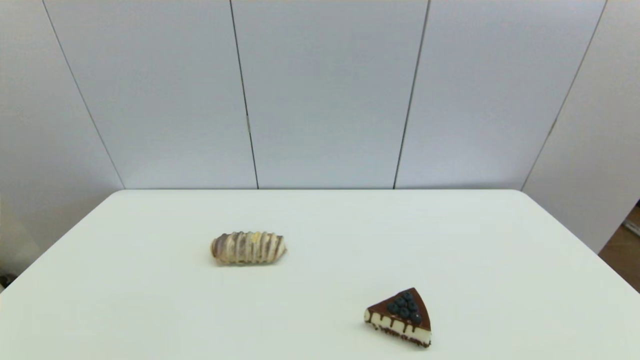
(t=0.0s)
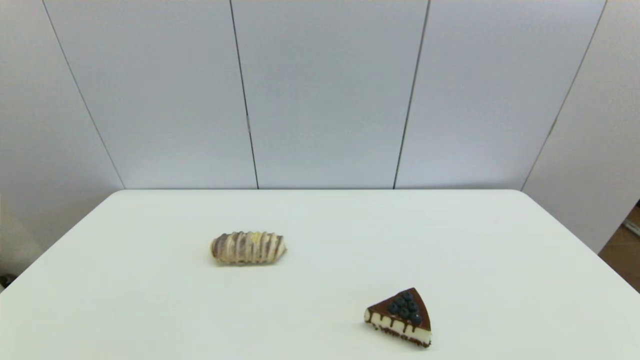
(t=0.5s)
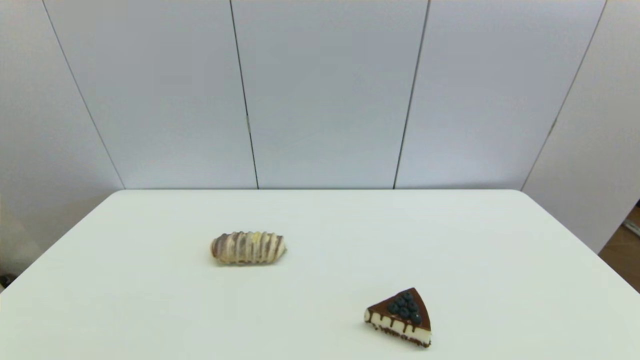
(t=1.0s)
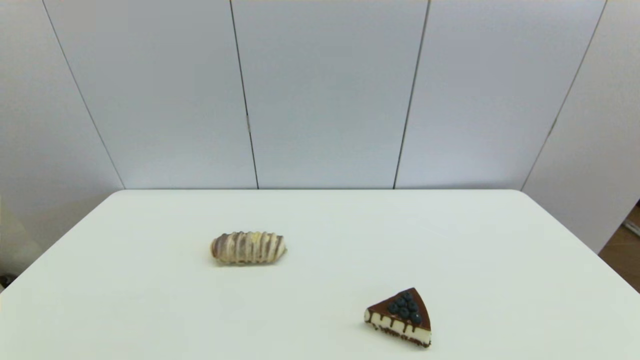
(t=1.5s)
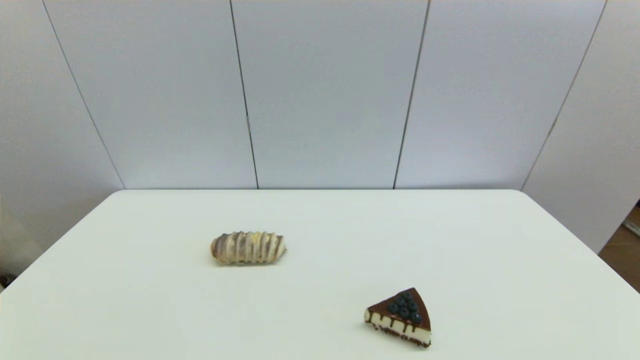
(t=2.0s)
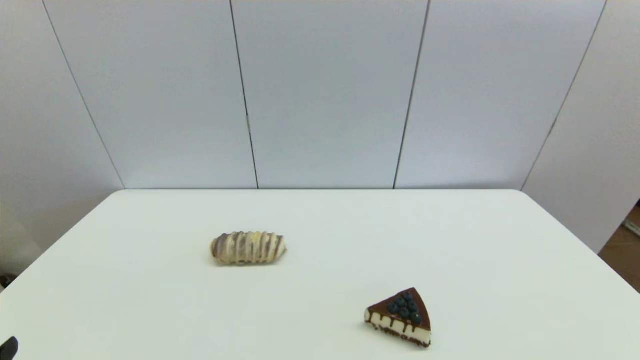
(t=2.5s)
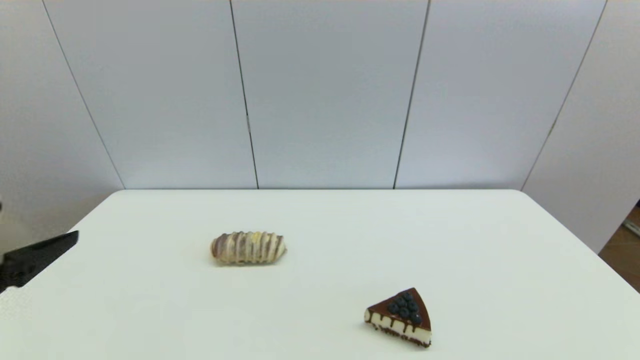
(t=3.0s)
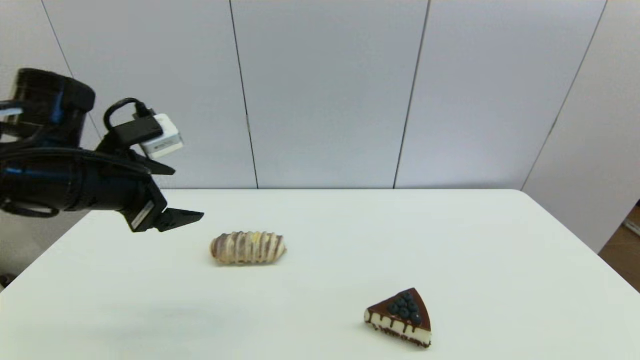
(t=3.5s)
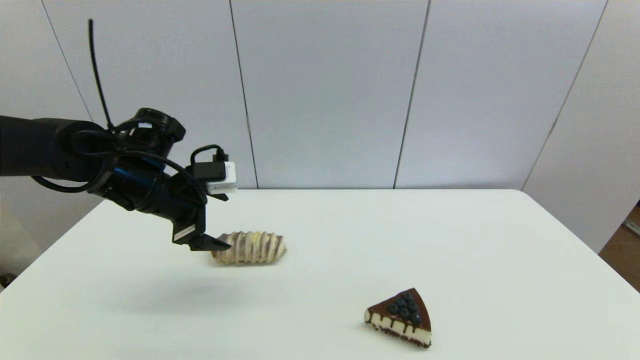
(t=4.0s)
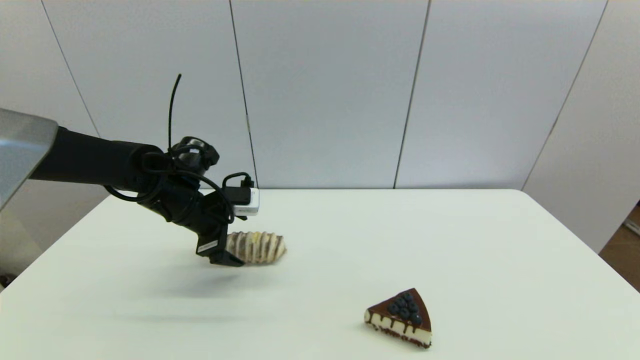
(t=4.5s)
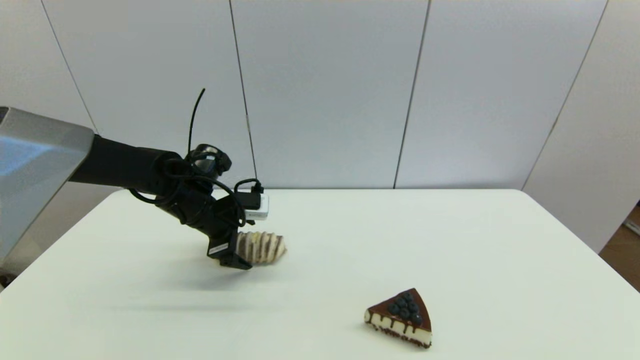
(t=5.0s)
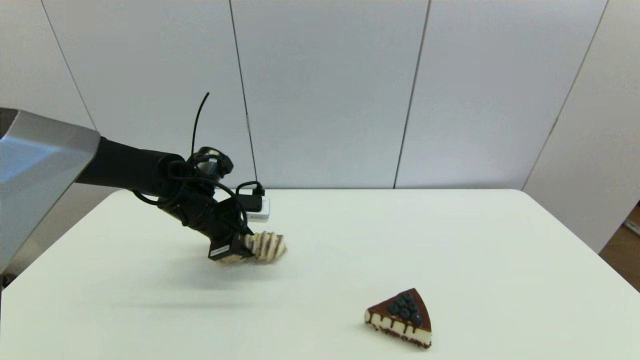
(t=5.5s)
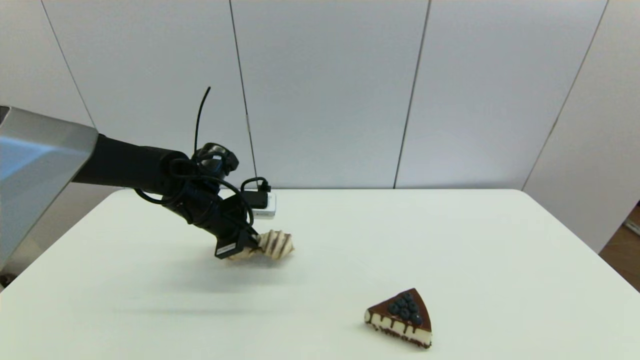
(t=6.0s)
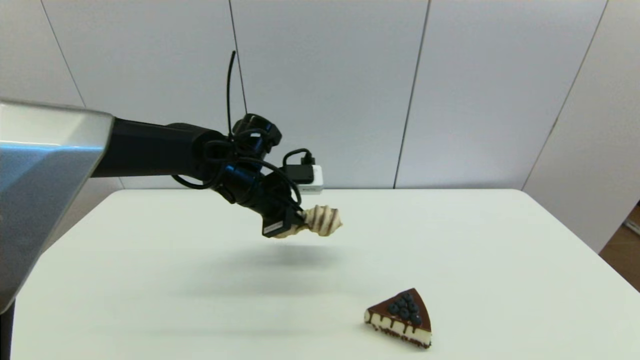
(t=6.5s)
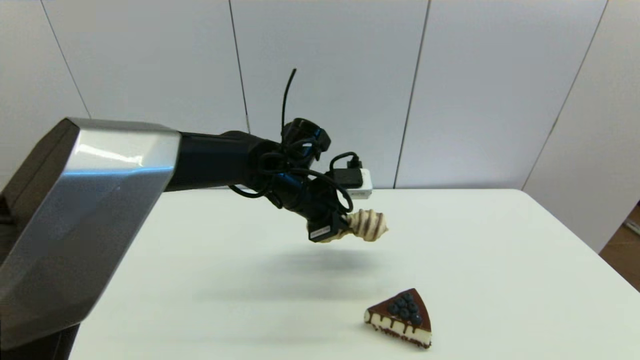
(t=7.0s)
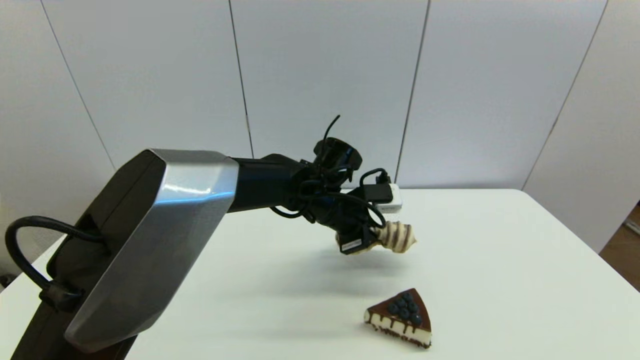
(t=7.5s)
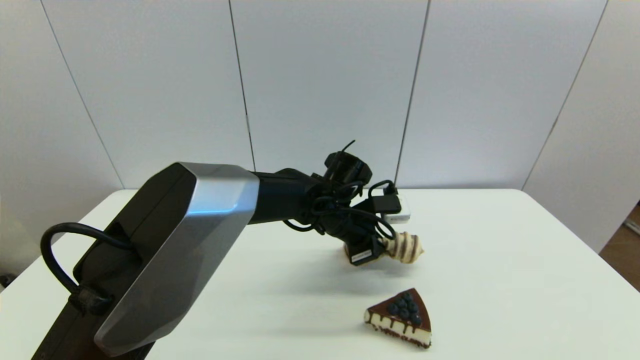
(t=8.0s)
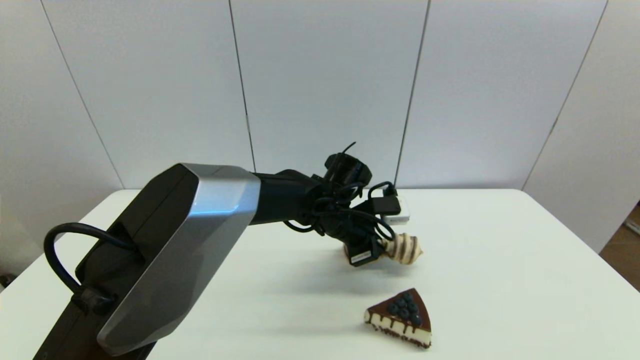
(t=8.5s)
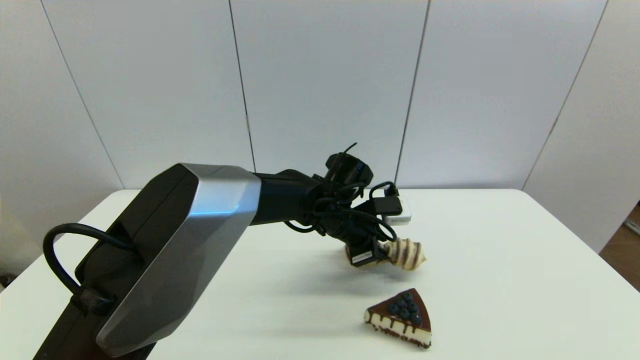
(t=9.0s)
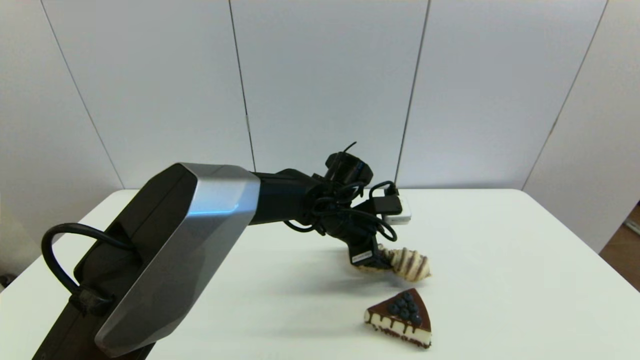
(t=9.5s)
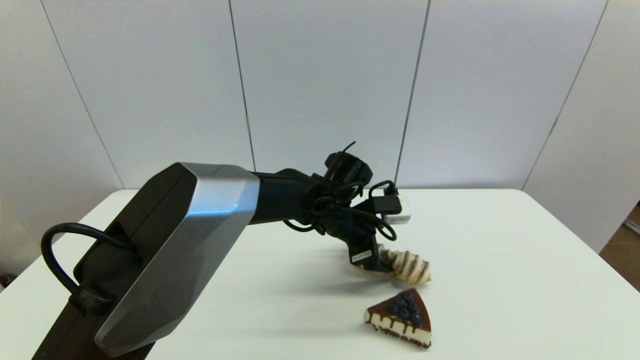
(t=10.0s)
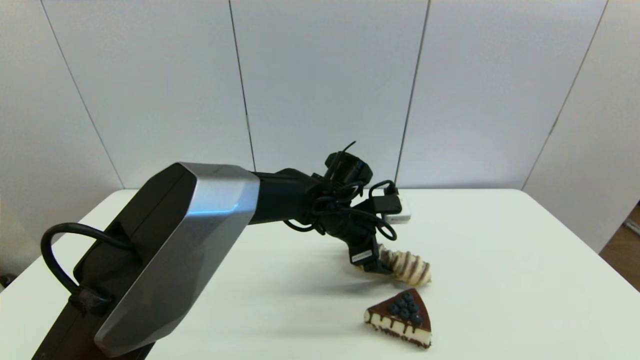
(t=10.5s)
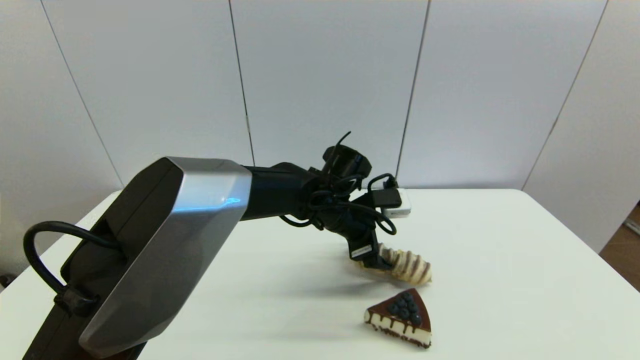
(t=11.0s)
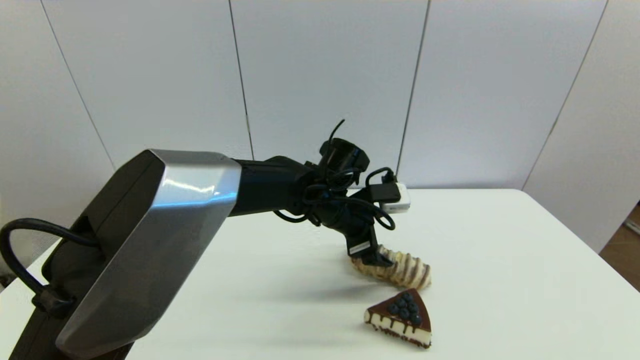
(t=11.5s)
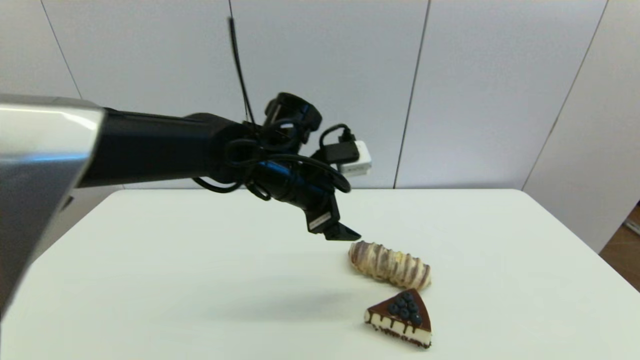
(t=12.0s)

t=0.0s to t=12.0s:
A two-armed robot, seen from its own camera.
Step, t=2.5s to t=5.5s: Grasp the long bread with left gripper.
Step, t=6.0s to t=11.5s: Place the long bread on the table with left gripper.
t=0.0s to t=2.0s: Both grippers stay put.
t=2.0s to t=4.0s: The left gripper shifts some 35 cm forward.
t=4.0s to t=6.0s: The left gripper travels downward by some 5 cm, and closes its fingers.
t=6.0s to t=8.0s: The left gripper goes approximately 20 cm to the right.
t=8.0s to t=10.0s: The left gripper opens its fingers.
t=10.0s to t=12.0s: The left gripper is displaced upward and to the left by some 15 cm.

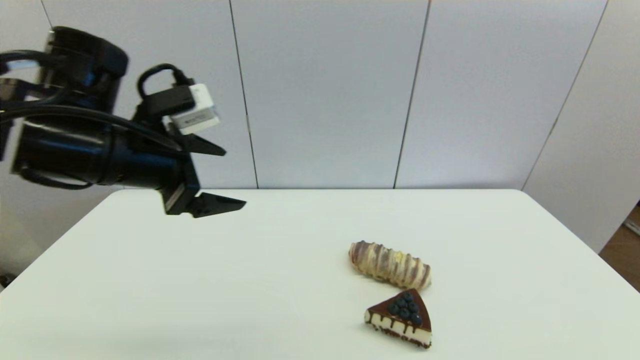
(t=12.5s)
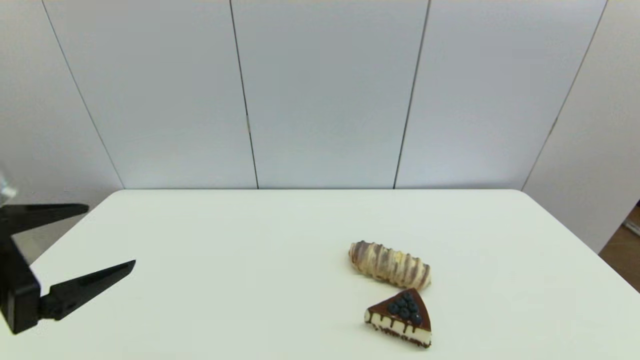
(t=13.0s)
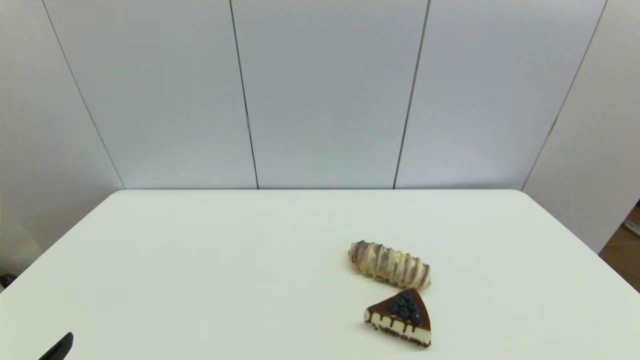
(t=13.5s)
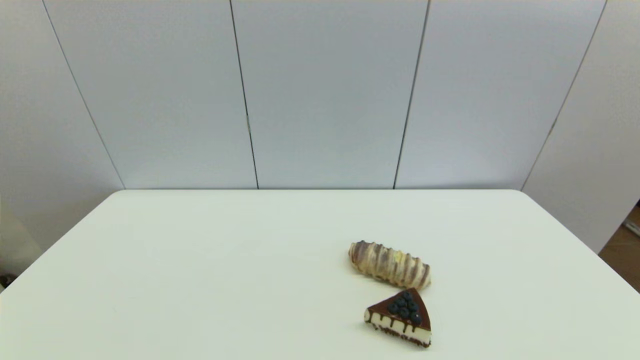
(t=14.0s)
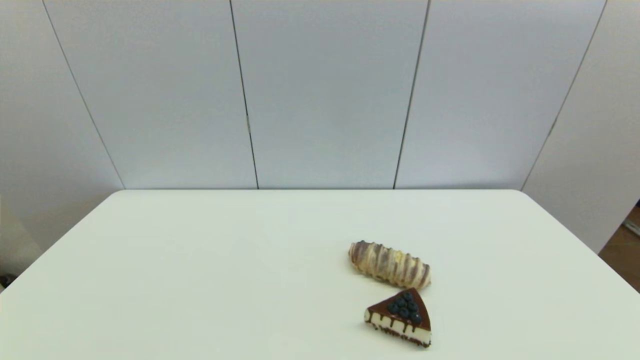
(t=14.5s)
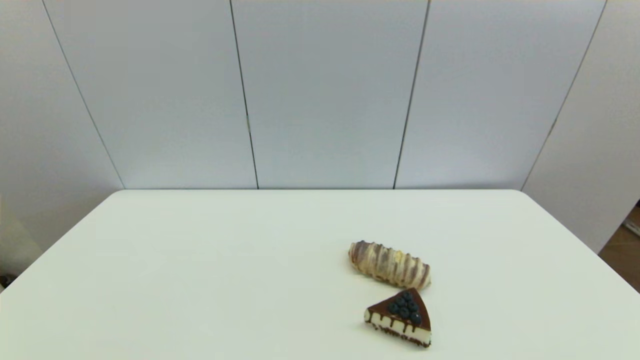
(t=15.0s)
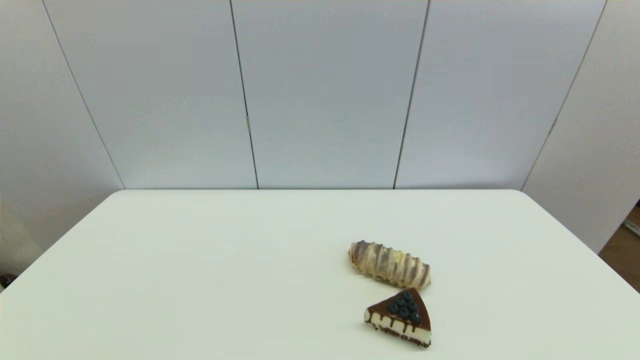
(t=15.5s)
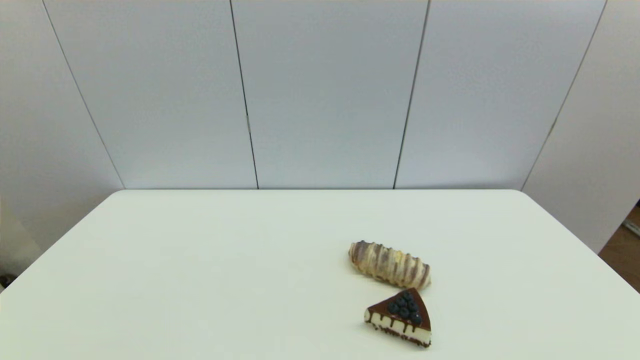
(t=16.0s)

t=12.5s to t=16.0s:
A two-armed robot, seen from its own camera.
t=12.5s to t=14.5s: The left gripper travels backward and downward by about 35 cm.
